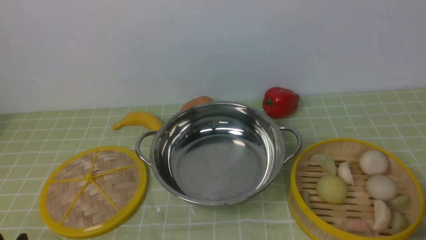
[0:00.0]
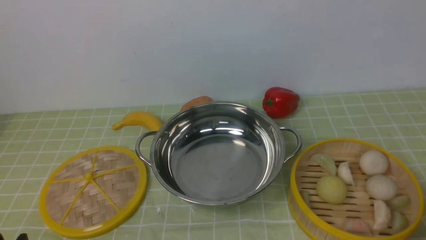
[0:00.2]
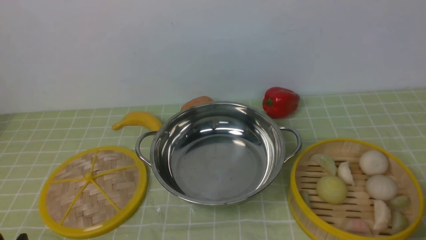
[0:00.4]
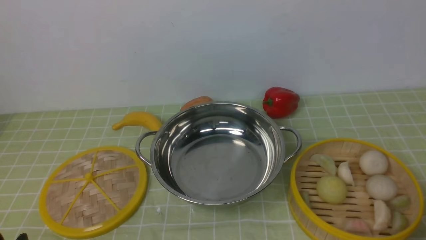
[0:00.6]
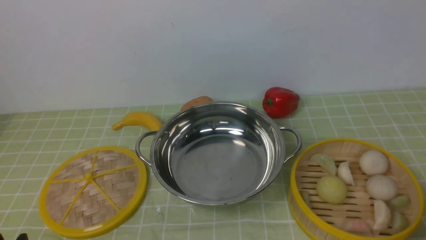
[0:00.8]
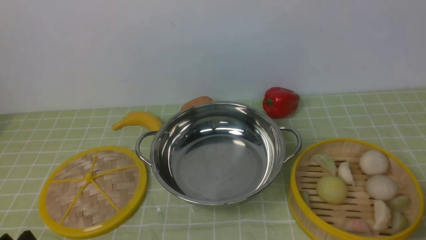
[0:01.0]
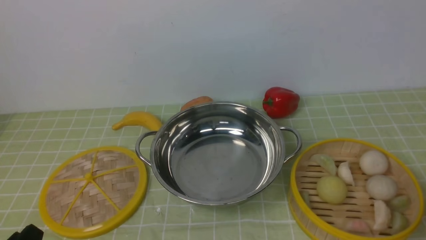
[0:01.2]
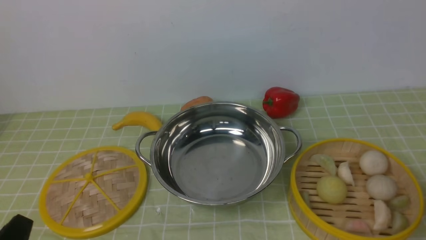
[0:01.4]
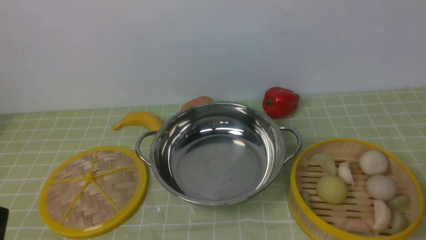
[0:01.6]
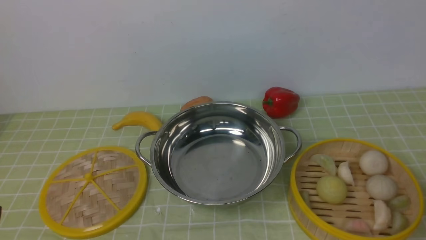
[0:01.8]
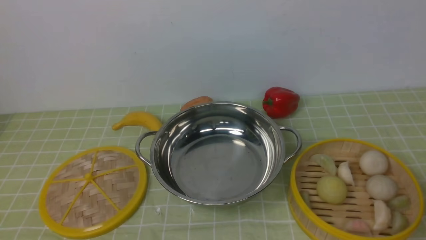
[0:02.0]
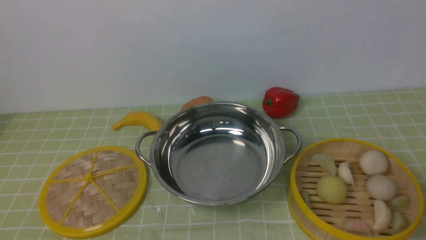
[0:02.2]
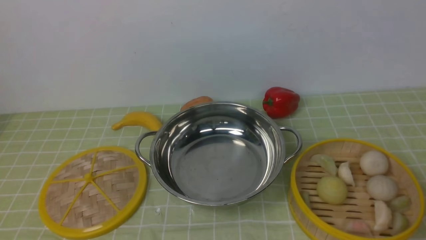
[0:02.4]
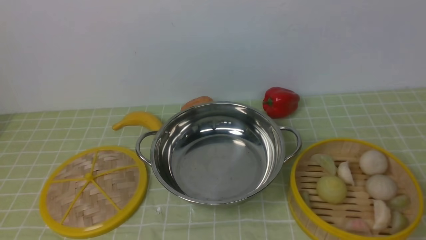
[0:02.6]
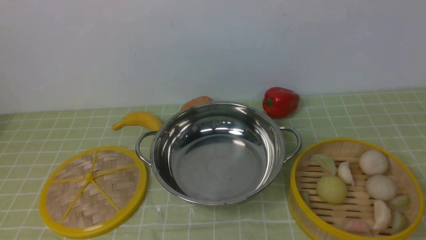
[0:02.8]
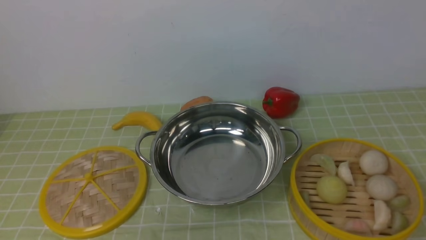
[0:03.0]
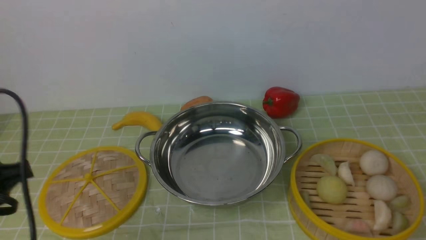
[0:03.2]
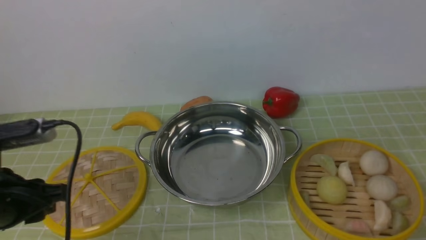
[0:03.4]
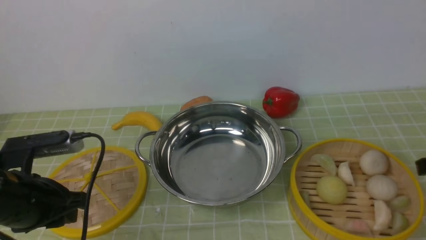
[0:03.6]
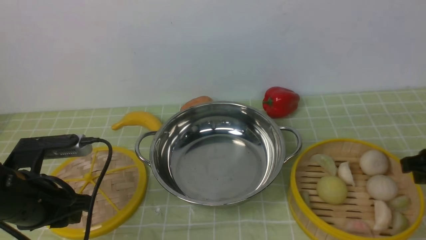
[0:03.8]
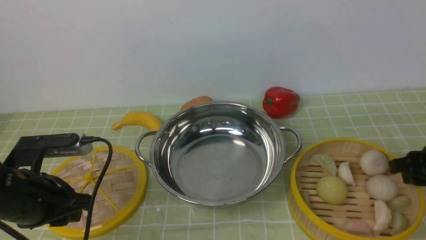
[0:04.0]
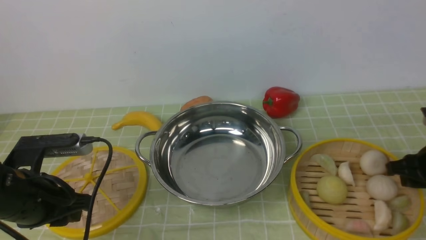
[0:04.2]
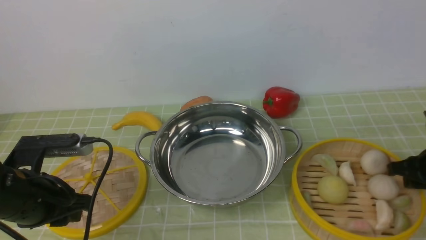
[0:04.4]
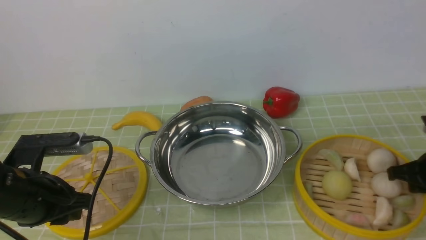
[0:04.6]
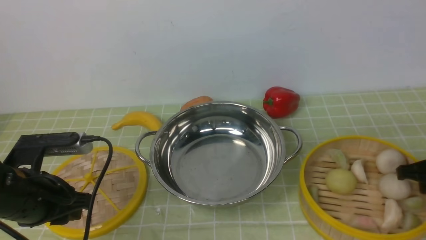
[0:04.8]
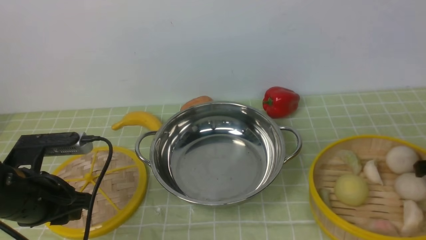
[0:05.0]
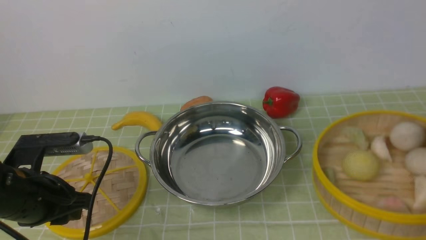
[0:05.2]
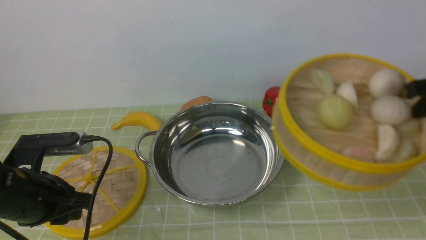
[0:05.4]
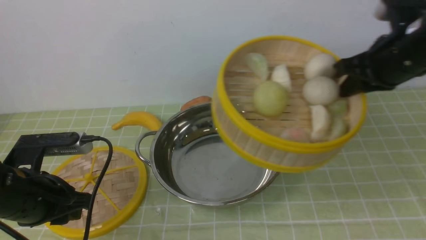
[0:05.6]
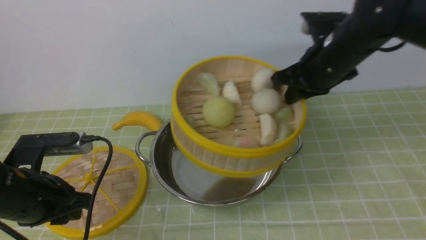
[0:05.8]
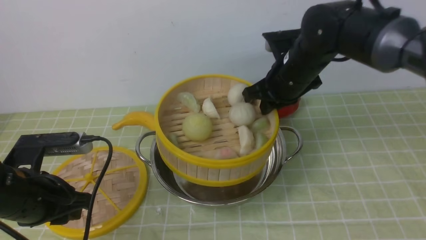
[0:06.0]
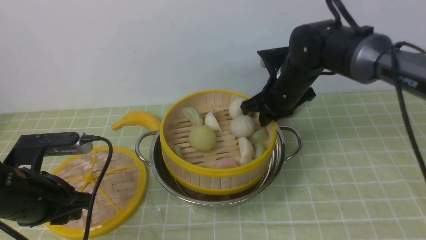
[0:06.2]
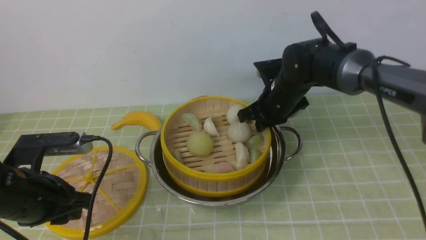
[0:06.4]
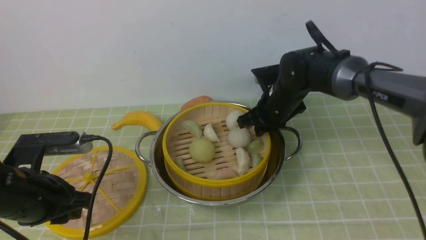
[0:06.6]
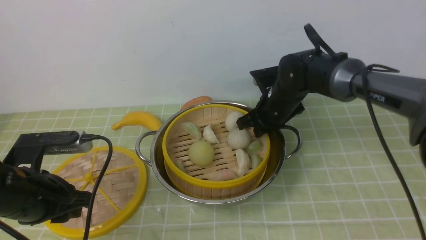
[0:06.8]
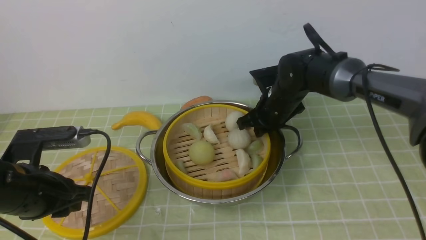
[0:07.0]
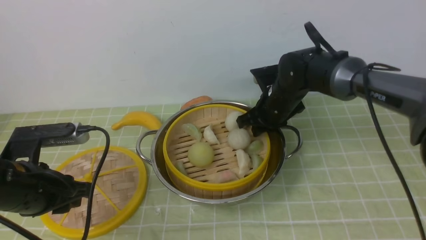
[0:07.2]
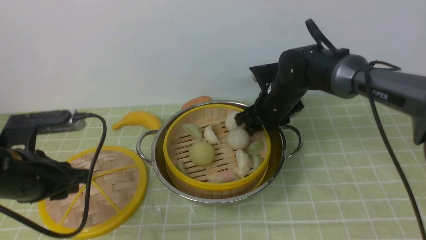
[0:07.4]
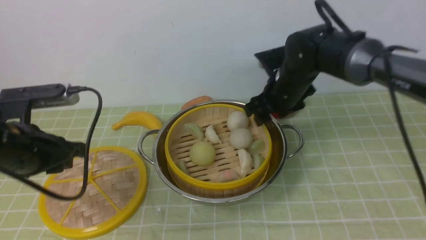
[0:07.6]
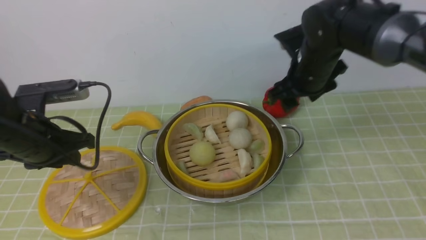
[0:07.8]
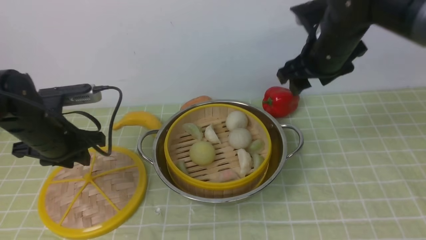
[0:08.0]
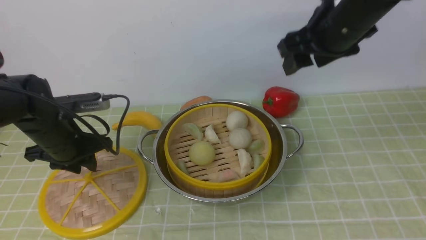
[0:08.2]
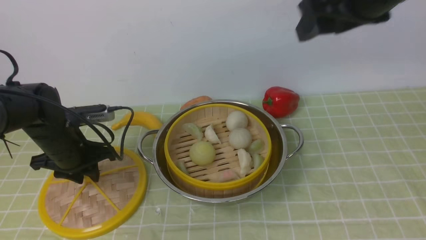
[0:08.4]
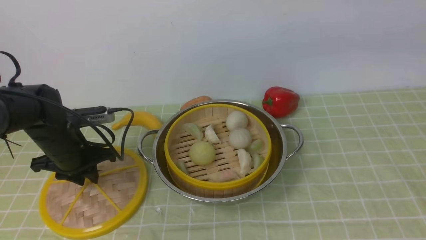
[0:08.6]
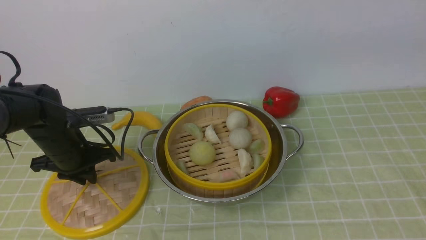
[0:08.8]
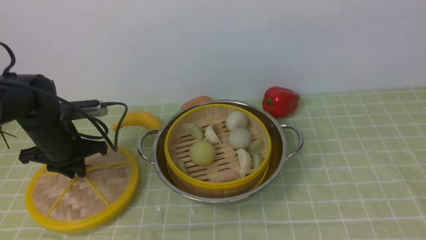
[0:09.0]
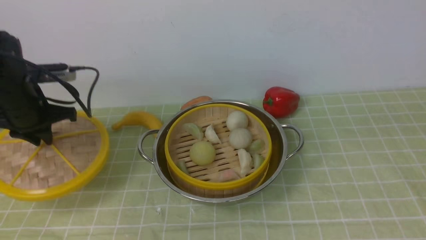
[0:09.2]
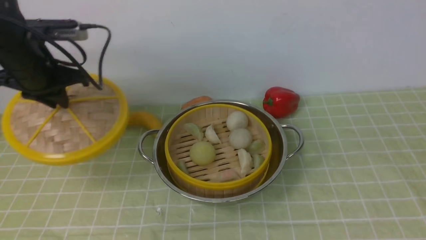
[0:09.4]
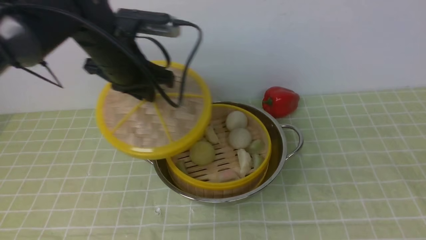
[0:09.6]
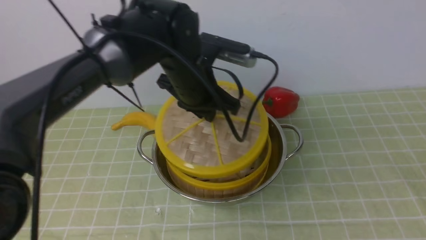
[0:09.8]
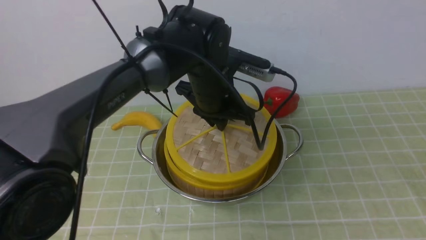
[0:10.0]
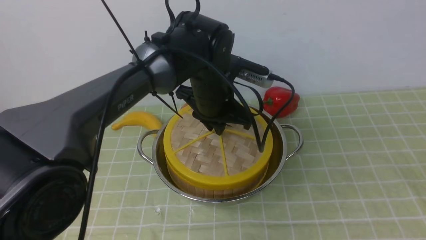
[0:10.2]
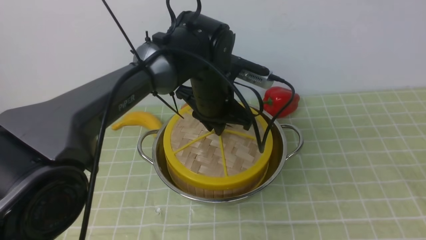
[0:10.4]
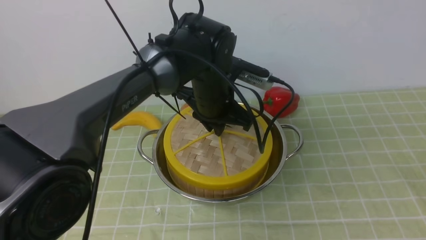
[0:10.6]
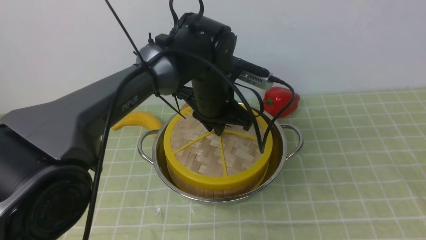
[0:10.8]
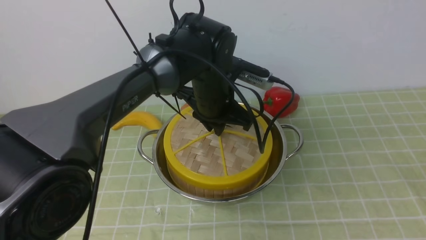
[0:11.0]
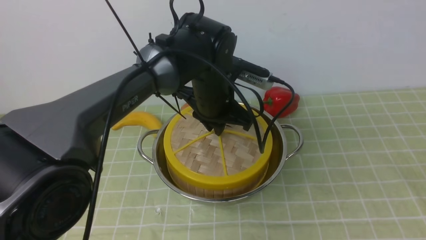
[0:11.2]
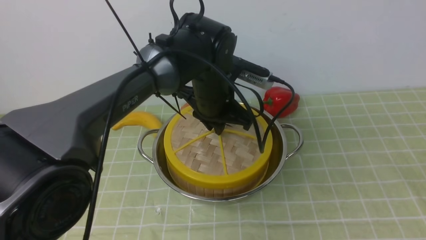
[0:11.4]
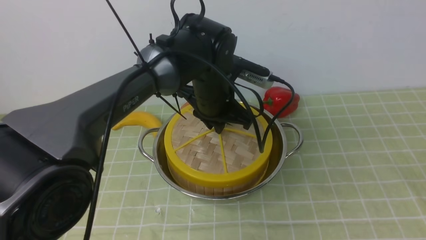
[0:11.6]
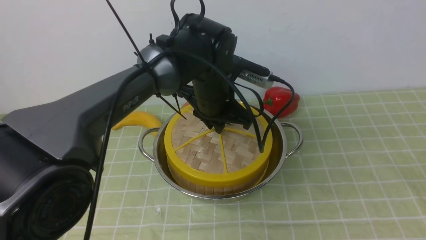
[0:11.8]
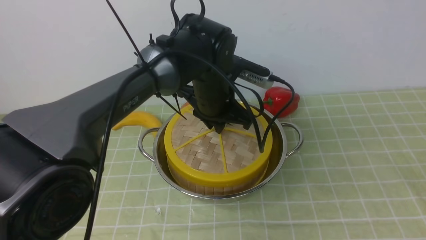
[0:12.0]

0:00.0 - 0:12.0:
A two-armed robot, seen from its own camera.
Task of the whole recording: place the steamer in the pot on the green tablecloth, and put the lid on the steamer.
Step, 0:00.0 - 0:05.0: use the right arm to lift the steamer closest to it.
Step, 0:05.2 - 0:07.8: use the right arm to put the steamer into the iron steamer pot in the middle.
Step, 0:08.0 - 0:09.4: use the left arm to lift the lid of the steamer.
0:03.0 - 0:04.4: The left gripper goes some 20 cm downward and forward; the right gripper shifts roughly 30 cm downward and forward, and closes.
0:04.4 - 0:06.0: The right gripper is displaced to the left, forward and upward by some 25 cm, and closes up.
0:06.0 - 0:07.6: The right gripper goes about 10 cm downward, and opens up.
0:07.6 - 0:09.0: The right gripper shifts roughly 40 cm upward, backward and to the right, while the left gripper travels forward and downward by about 15 cm.
0:09.0 - 0:10.4: The left gripper is displaced to the right by approximately 25 cm. The right gripper travels downward, backward and to the right by about 20 cm.
0:10.4 - 0:12.0: Neither gripper changes place.

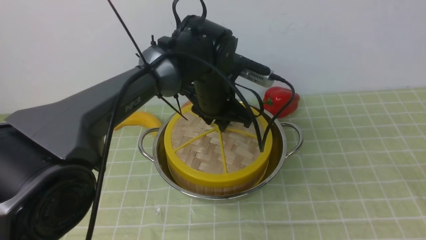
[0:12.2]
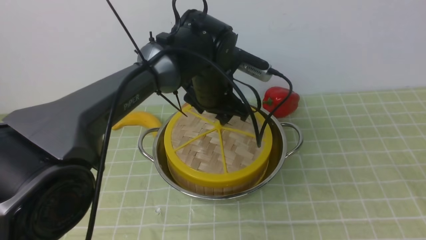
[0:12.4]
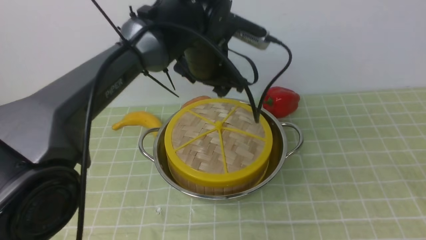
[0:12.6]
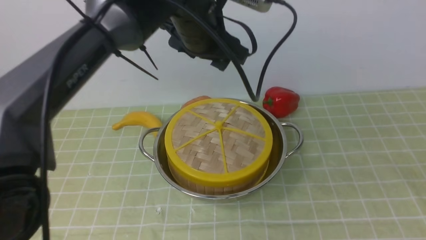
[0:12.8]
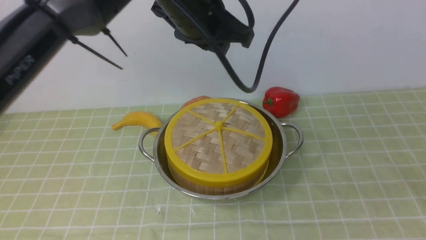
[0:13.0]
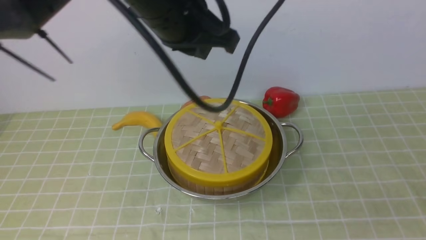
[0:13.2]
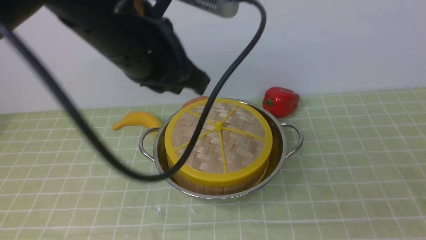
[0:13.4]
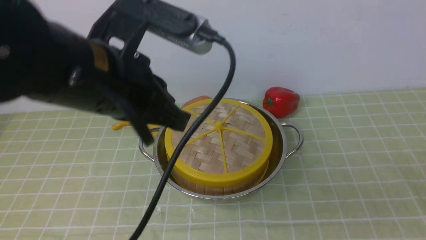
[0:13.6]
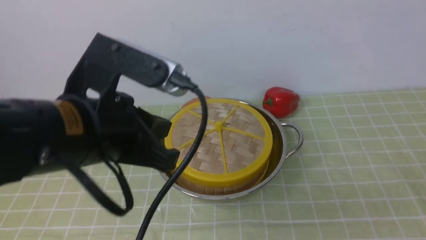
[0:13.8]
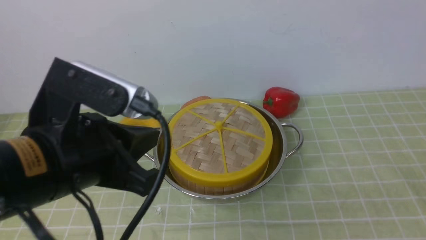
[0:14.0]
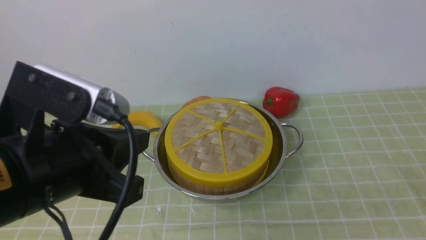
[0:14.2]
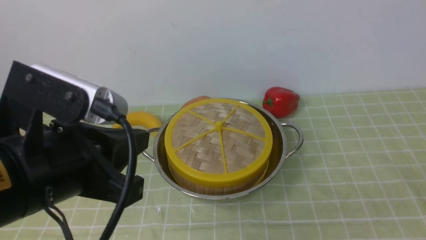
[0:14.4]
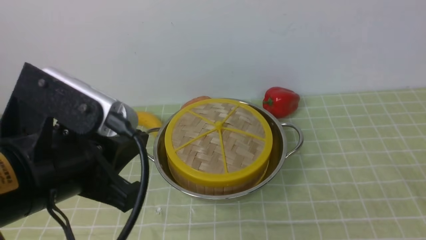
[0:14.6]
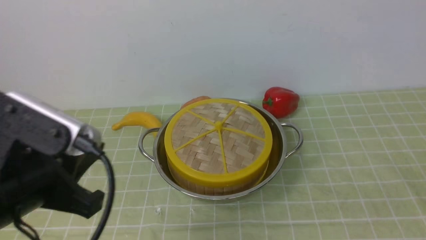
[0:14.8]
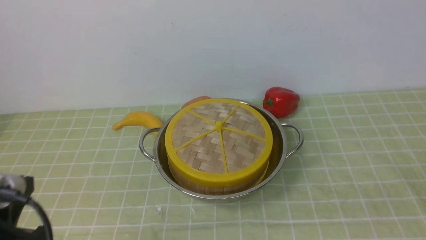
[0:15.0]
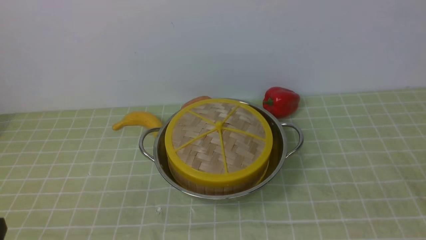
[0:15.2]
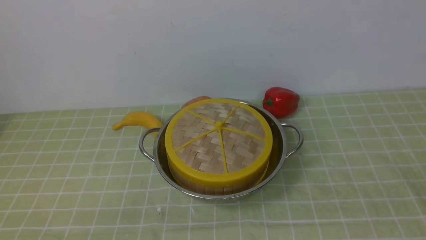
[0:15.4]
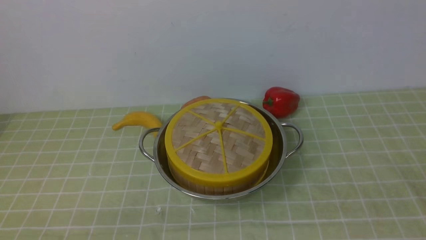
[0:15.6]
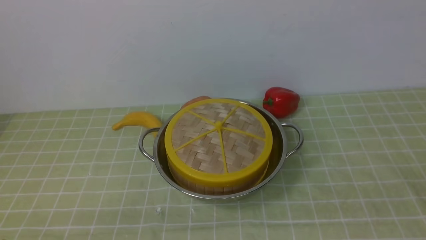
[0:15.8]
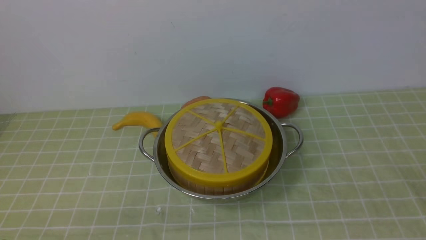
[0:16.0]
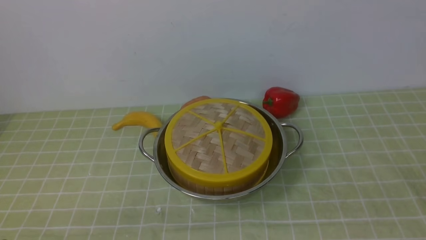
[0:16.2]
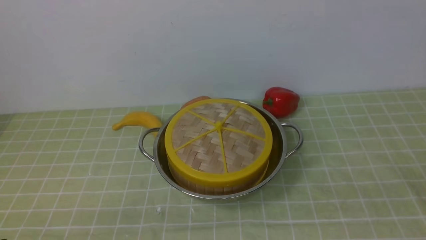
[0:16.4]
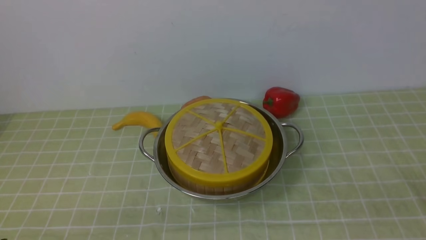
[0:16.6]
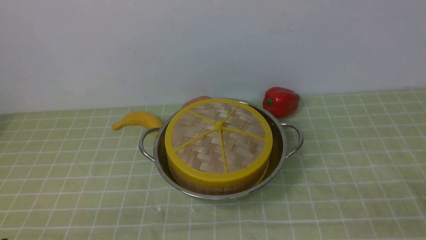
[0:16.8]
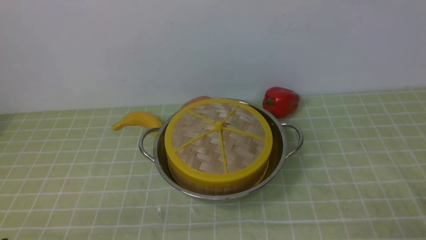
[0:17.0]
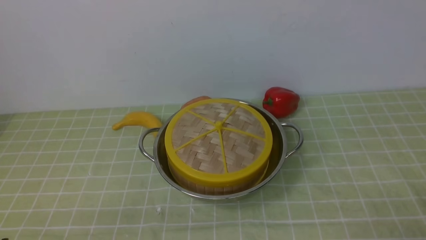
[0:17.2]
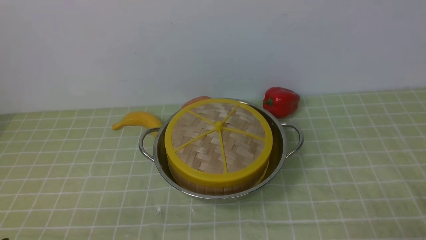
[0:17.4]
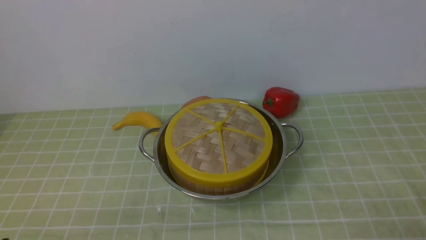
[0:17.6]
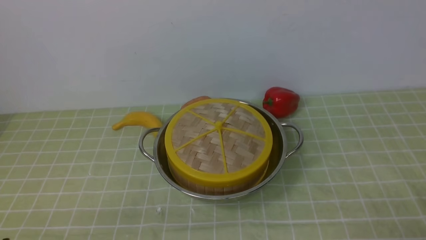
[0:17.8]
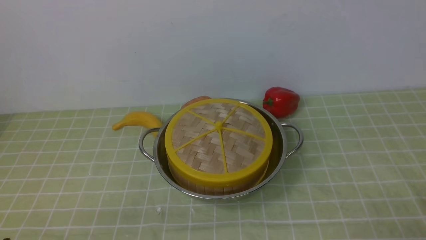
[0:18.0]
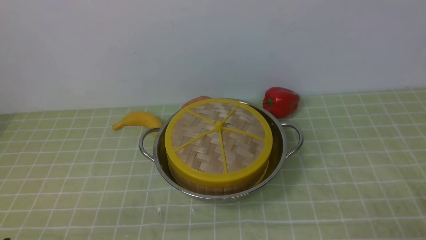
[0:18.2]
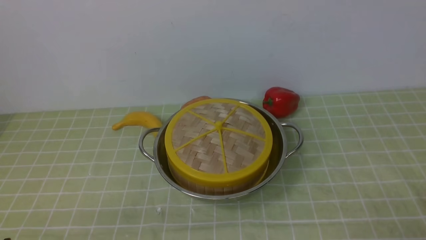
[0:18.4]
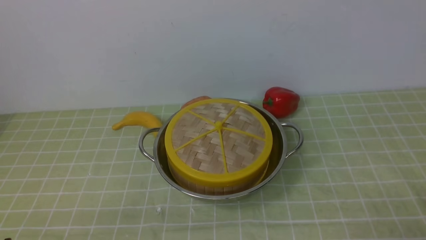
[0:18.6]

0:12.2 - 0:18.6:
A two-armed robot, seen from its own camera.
Task of the whole recording: place the steamer in the pot on the green tablecloth, and put the lid on the steamer.
0:12.2 - 0:13.8: The left gripper moves backward, upward and to the left, approximately 25 cm, and closes its fingers, while the right gripper ends up some 5 cm from where it was, and closes up.
0:13.8 - 0:15.4: The left gripper is displaced backward, downward and to the left by about 25 cm.
